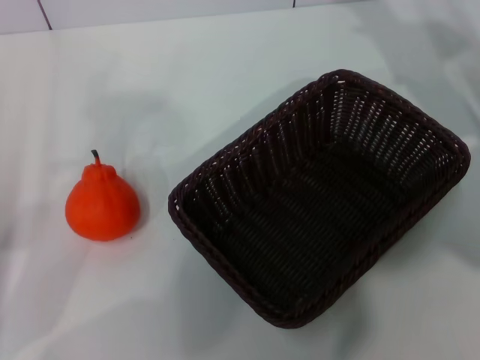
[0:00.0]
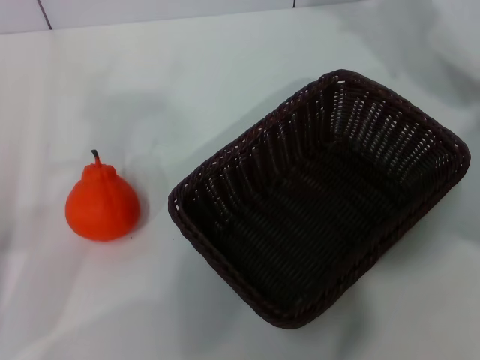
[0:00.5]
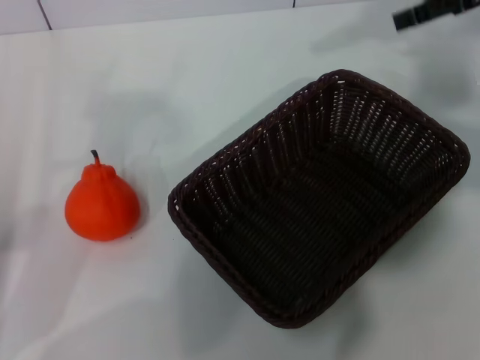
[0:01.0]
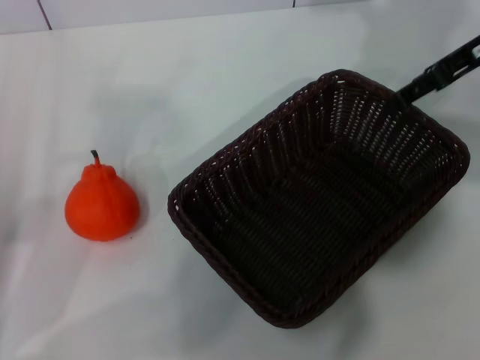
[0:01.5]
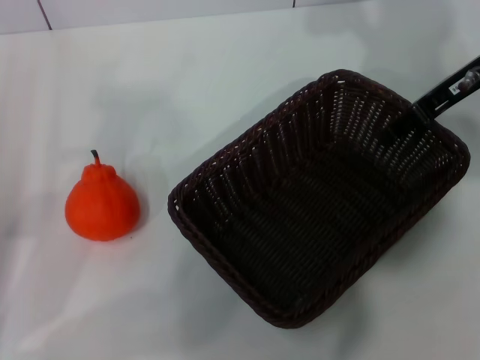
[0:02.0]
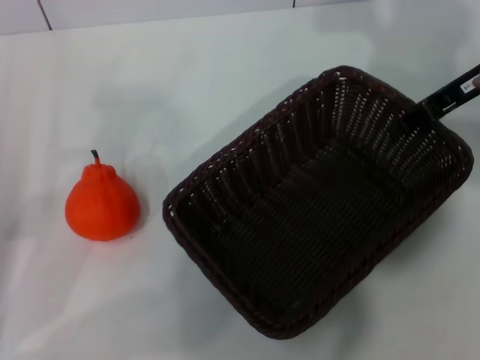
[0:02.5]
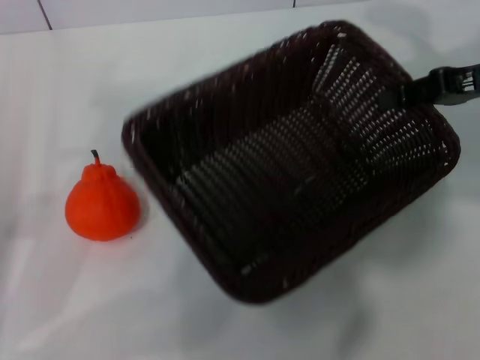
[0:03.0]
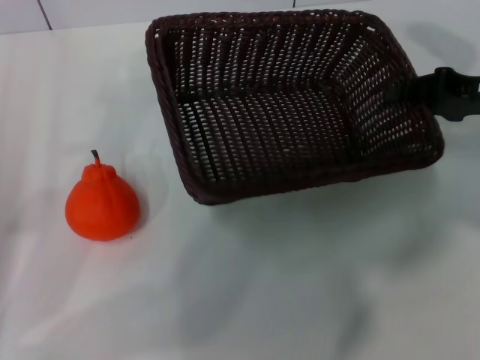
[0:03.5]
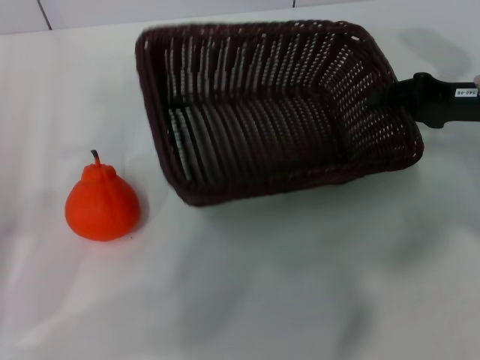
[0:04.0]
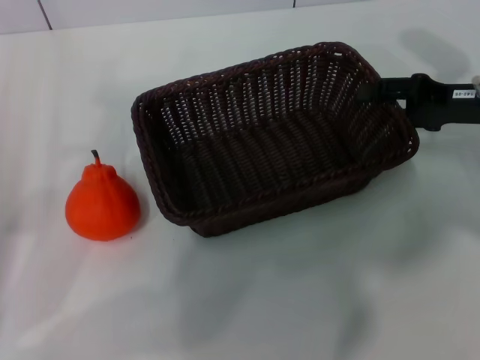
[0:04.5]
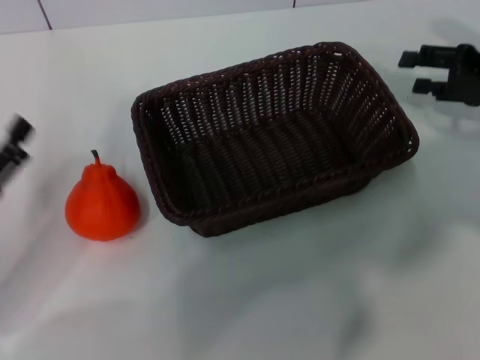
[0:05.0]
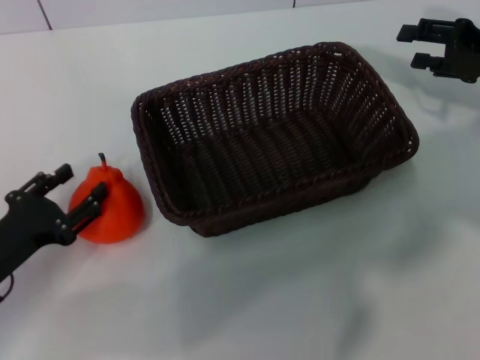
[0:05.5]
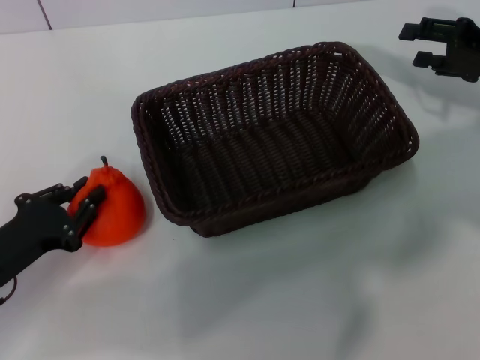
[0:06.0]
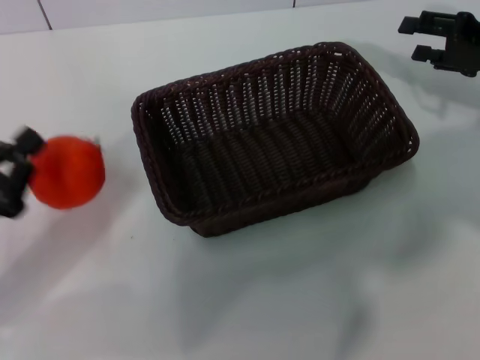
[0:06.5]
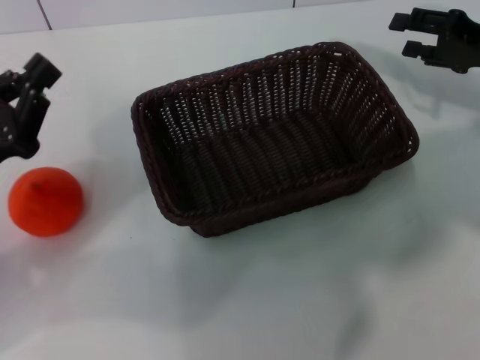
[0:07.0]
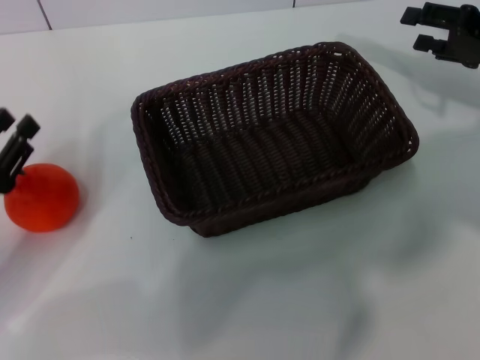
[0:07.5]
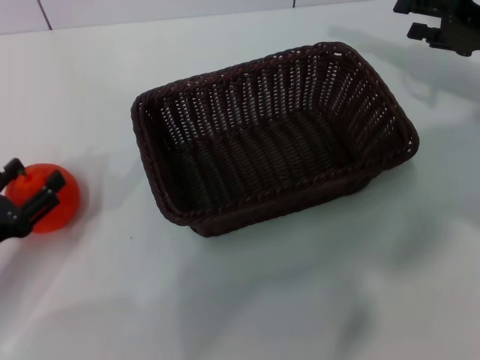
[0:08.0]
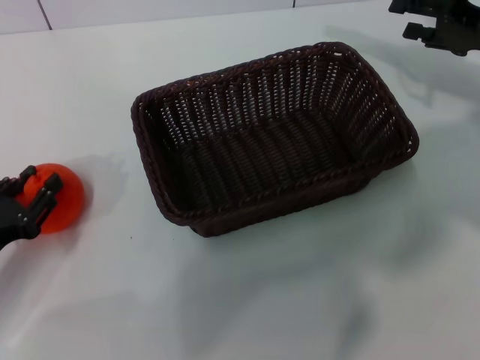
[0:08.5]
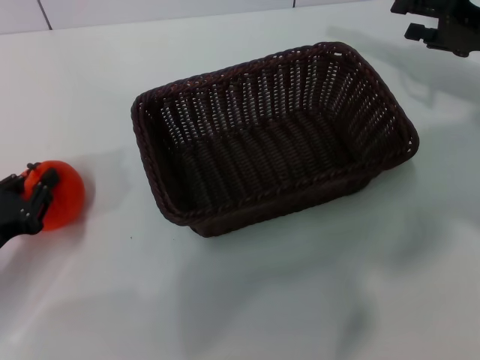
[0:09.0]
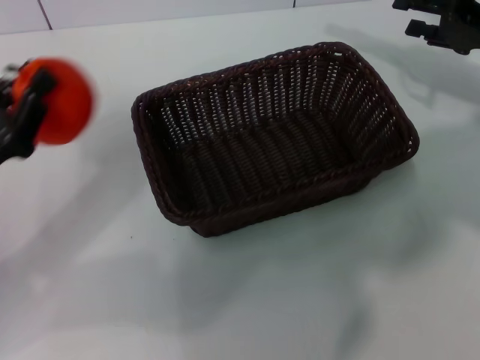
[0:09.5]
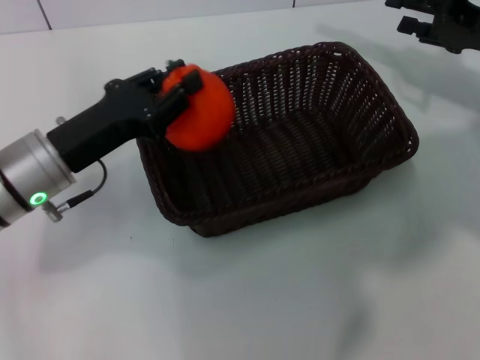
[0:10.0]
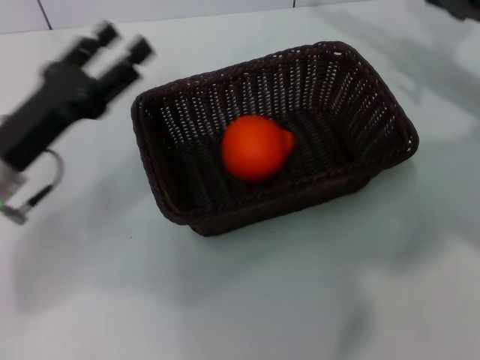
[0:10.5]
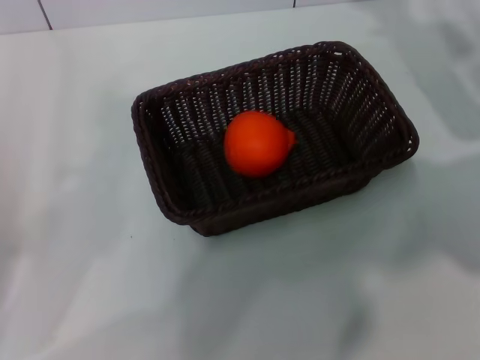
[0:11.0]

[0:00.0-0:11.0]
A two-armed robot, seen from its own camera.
Task of the whole recording: the right gripper pick up the black basket and place it horizontally in the middle of the table, the left gripper pick up the orange and place it into the black basket.
Step, 0:00.0 to 0:02.5: Pick up the dark basket with the right gripper.
Step, 0:03.0 to 0:04.5: Place the dark basket in the center of view with the right gripper.
Step, 0:05.0 to 0:09.0: Pick up the orange with the left gripper.
Step, 0:09.5 to 0:10.0: Place the orange into the dark basket with the left gripper.
0:00.0 to 0:02.0: The right gripper heads upward, covering about 5 cm.
0:02.0 to 0:03.5: The right gripper shifts approximately 10 cm downward, to the right and backward, and closes up.
0:03.5 to 0:05.5: The left gripper heads downward, covering approximately 5 cm; the right gripper opens up.
0:05.5 to 0:07.5: The left gripper closes its fingers.
0:07.5 to 0:09.0: The left gripper opens and closes again.
0:09.0 to 0:11.0: The left gripper goes approximately 5 cm upward, goes forward and returns, some 10 cm each way, and opens.
